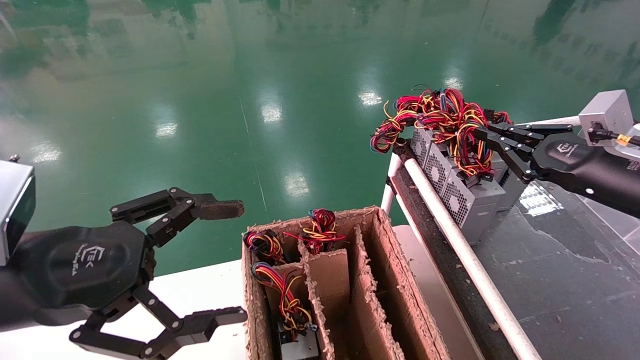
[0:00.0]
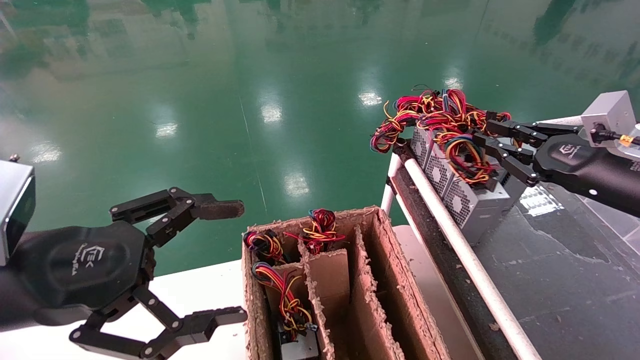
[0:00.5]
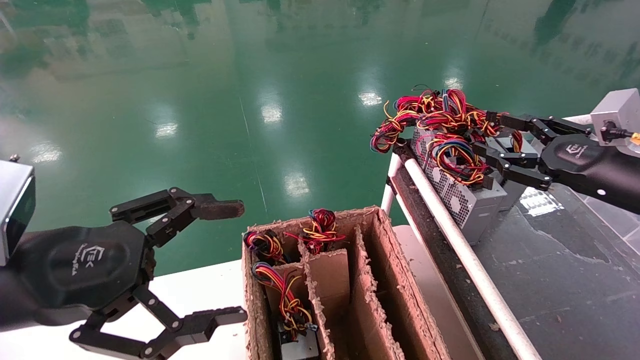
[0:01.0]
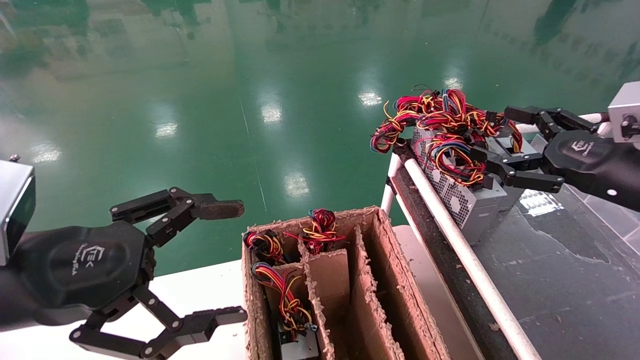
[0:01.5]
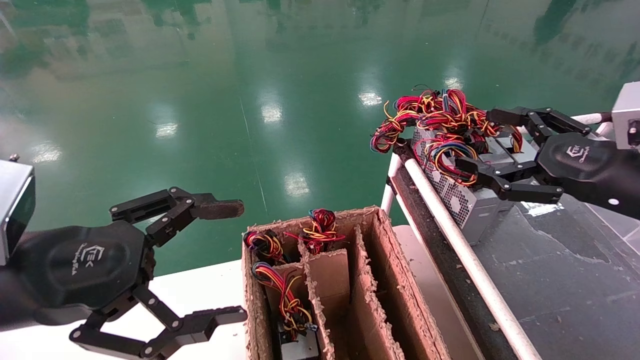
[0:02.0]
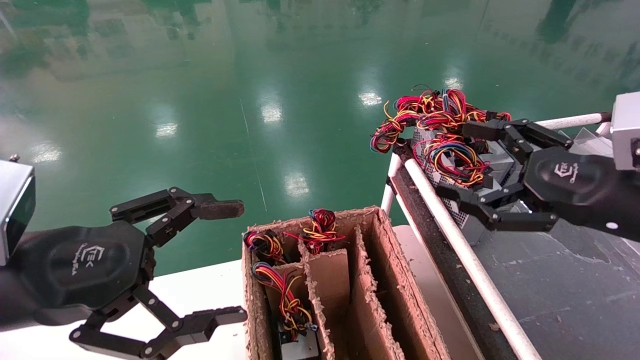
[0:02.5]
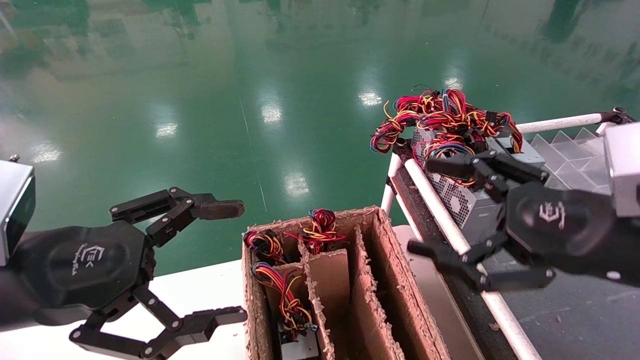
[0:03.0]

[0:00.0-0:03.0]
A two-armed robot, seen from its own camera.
0:00.0 to 0:01.5: The right gripper opens.
0:01.5 to 0:03.0: The right gripper is displaced backward and to the left by approximately 15 cm.
